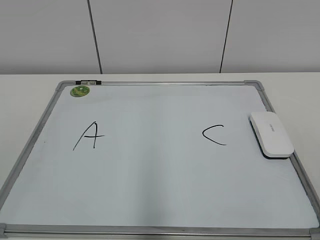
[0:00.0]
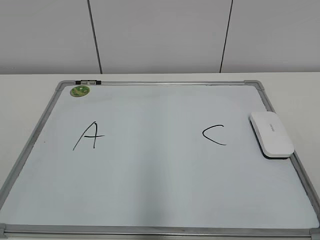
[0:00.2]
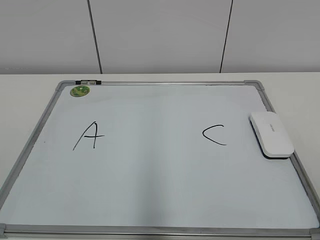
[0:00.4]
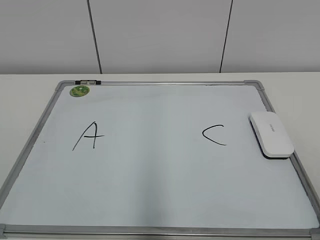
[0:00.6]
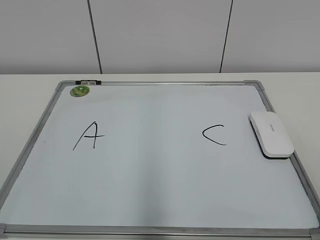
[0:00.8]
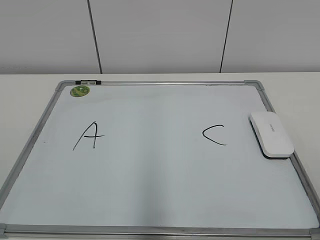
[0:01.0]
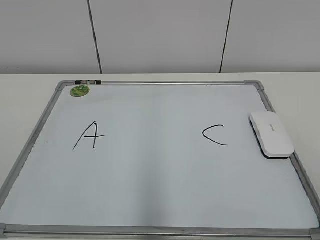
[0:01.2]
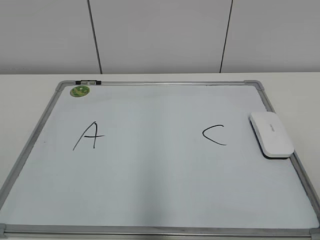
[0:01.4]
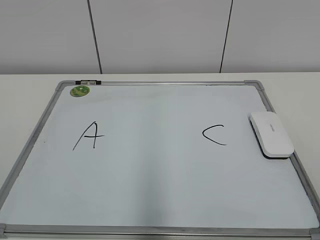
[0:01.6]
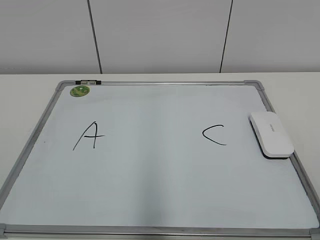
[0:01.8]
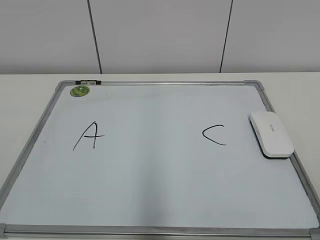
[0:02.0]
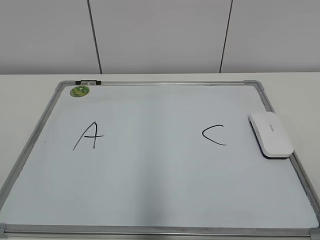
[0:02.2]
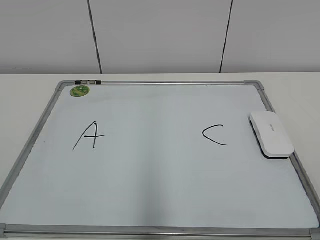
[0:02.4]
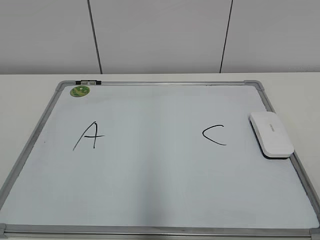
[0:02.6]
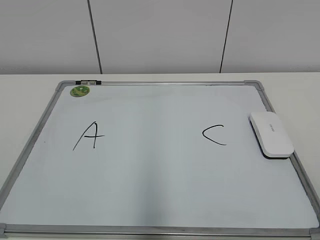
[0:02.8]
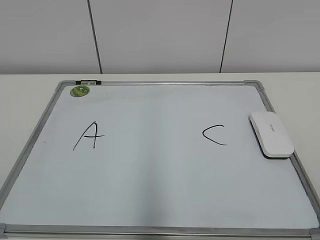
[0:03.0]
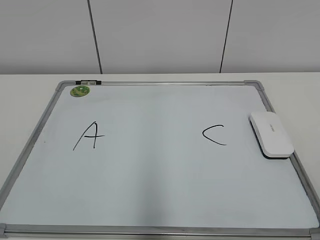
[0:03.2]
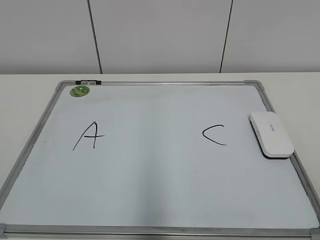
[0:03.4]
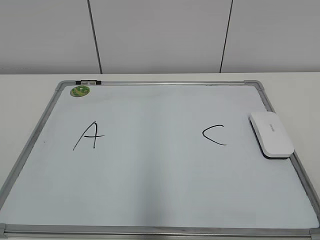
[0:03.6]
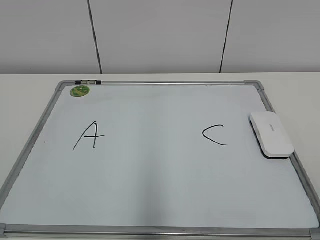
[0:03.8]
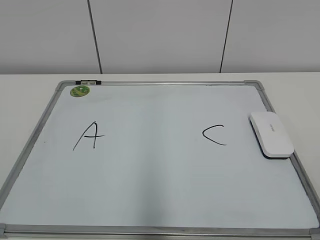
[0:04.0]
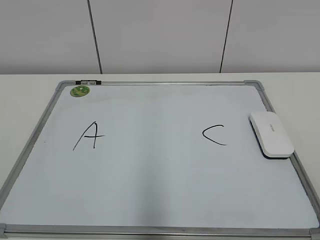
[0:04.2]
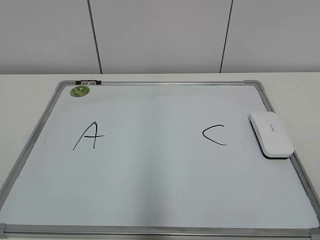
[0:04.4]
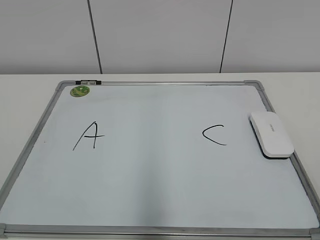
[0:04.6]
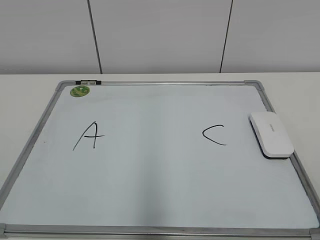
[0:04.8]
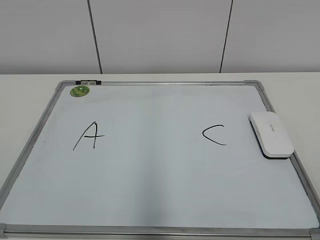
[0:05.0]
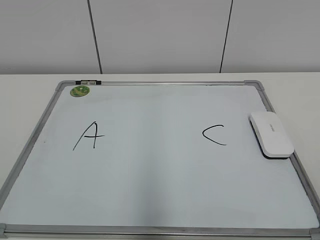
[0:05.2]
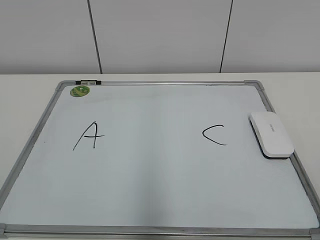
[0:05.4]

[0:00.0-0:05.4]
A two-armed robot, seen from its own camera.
Task of the whole recording: pick up the eraser on the blackboard and erase the letter "B".
0:02.8 to 0:05.4: Neither gripper changes place.

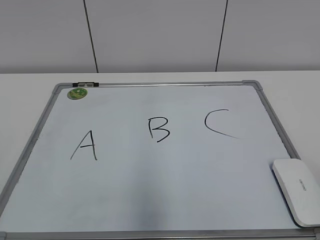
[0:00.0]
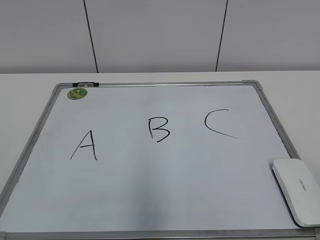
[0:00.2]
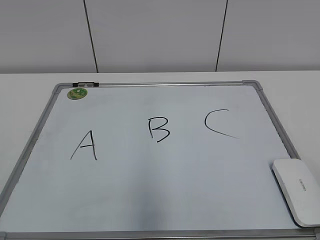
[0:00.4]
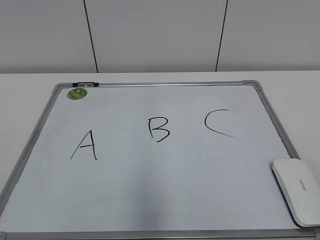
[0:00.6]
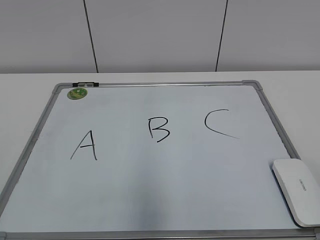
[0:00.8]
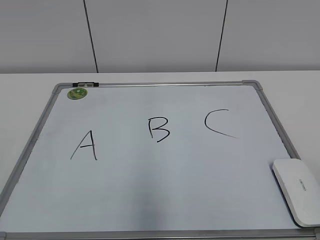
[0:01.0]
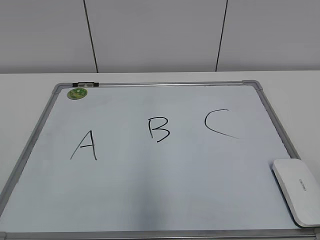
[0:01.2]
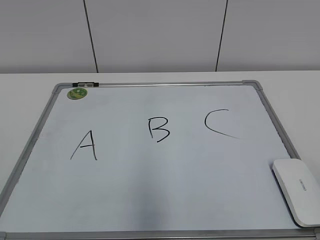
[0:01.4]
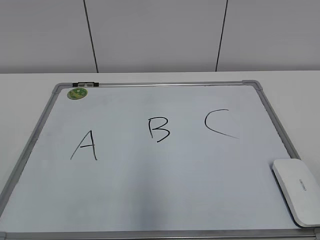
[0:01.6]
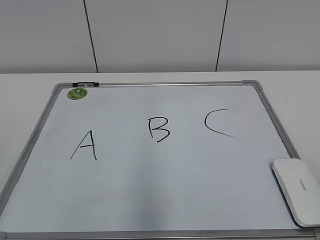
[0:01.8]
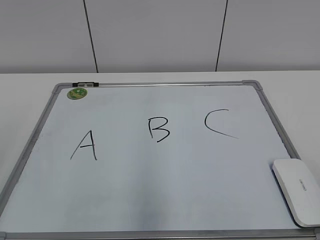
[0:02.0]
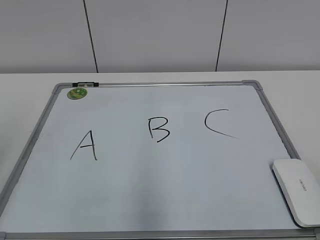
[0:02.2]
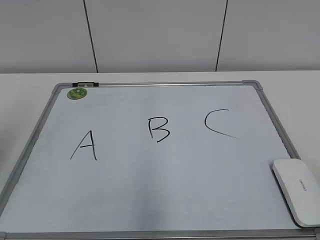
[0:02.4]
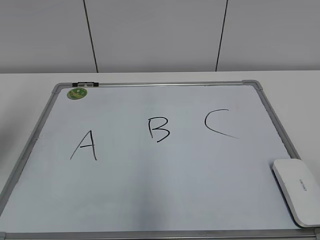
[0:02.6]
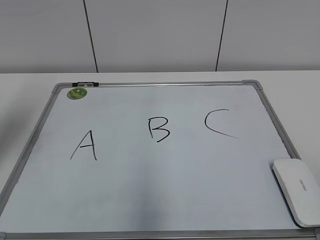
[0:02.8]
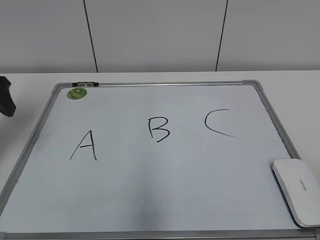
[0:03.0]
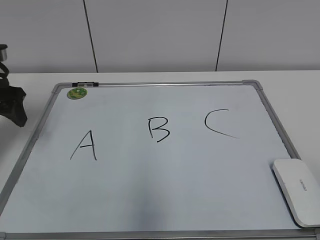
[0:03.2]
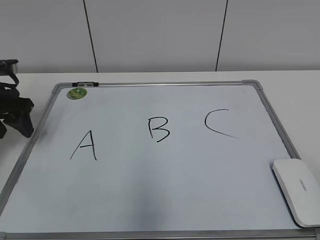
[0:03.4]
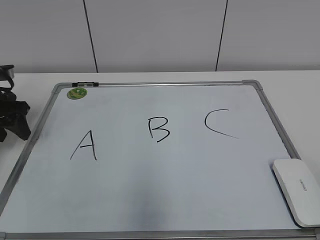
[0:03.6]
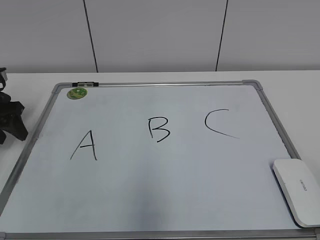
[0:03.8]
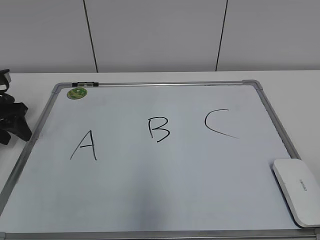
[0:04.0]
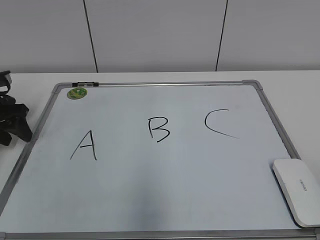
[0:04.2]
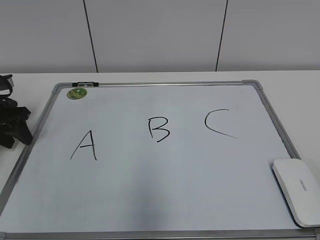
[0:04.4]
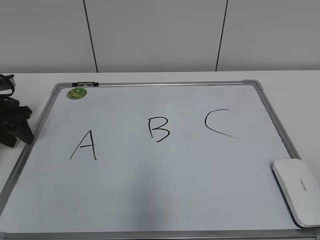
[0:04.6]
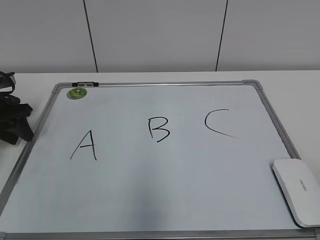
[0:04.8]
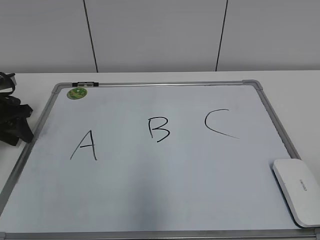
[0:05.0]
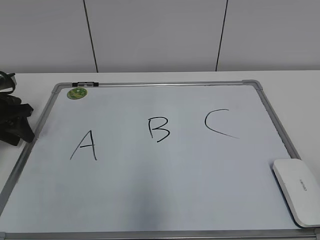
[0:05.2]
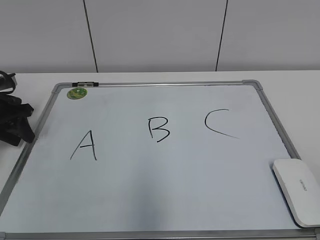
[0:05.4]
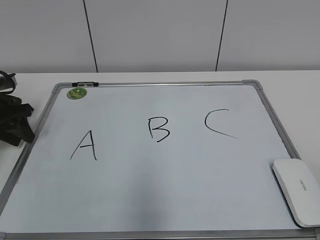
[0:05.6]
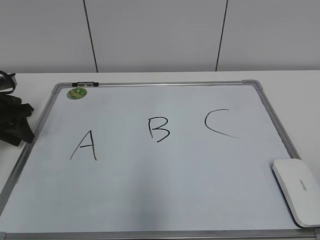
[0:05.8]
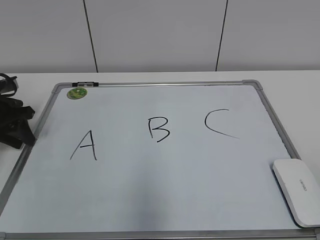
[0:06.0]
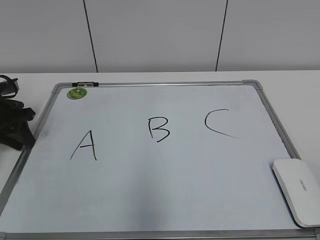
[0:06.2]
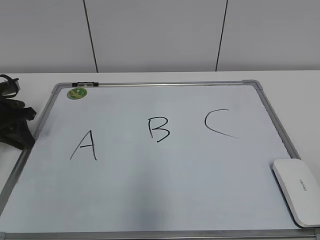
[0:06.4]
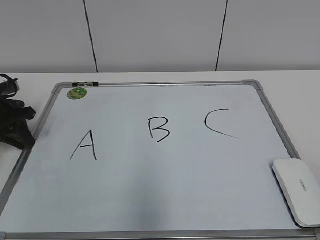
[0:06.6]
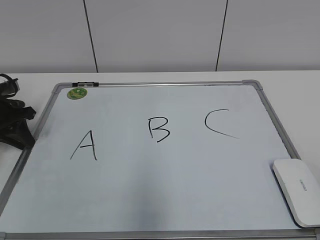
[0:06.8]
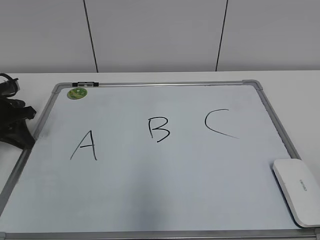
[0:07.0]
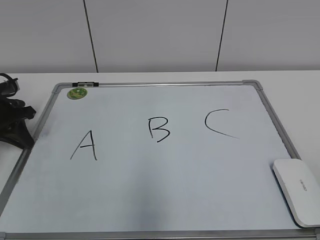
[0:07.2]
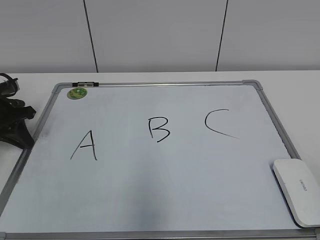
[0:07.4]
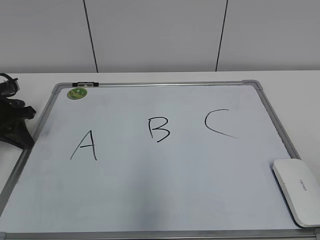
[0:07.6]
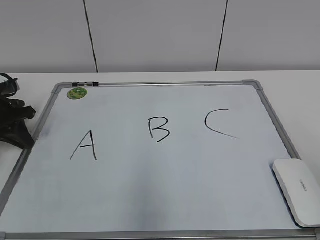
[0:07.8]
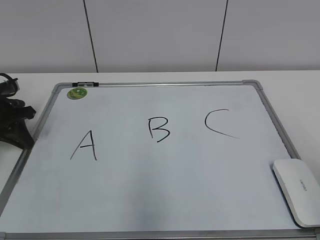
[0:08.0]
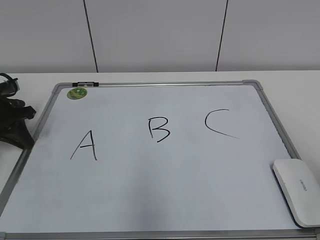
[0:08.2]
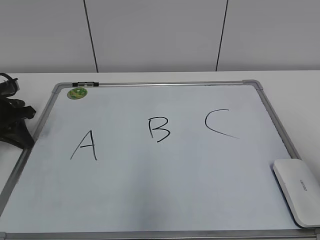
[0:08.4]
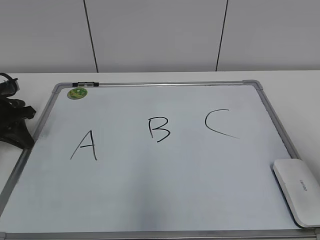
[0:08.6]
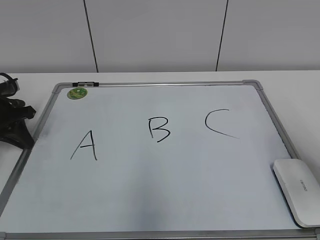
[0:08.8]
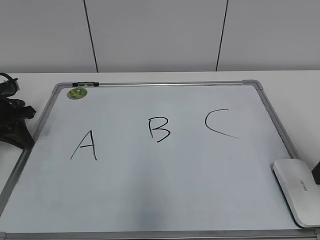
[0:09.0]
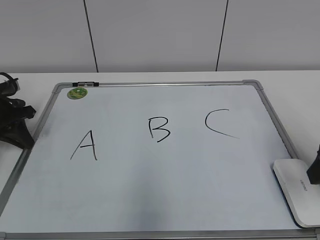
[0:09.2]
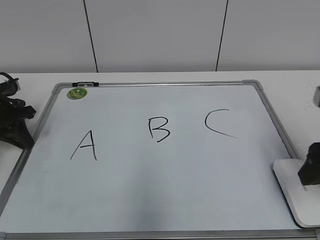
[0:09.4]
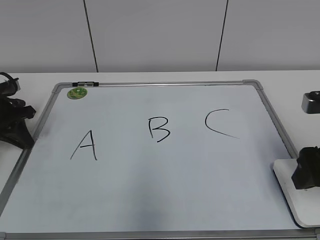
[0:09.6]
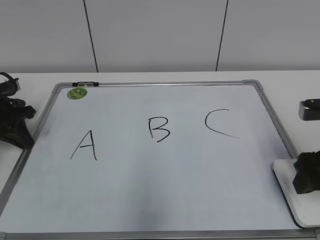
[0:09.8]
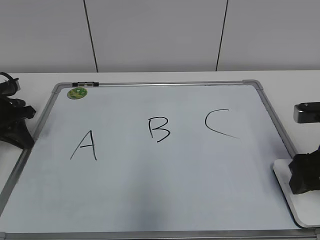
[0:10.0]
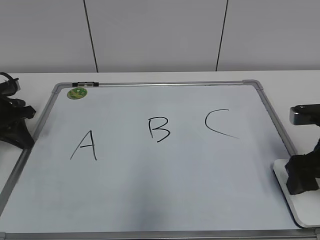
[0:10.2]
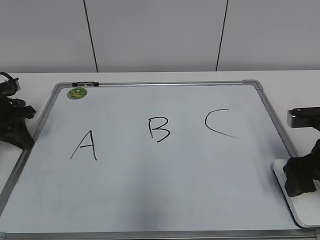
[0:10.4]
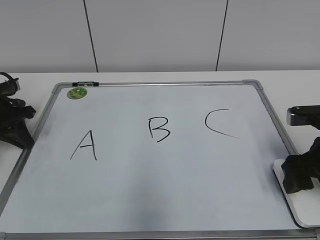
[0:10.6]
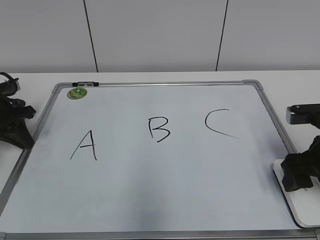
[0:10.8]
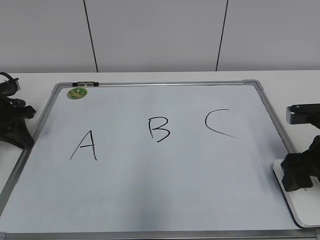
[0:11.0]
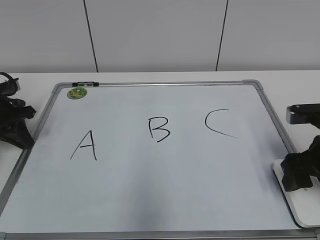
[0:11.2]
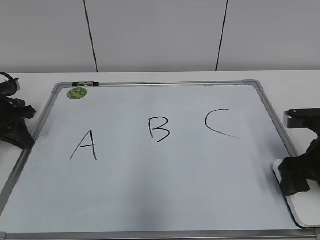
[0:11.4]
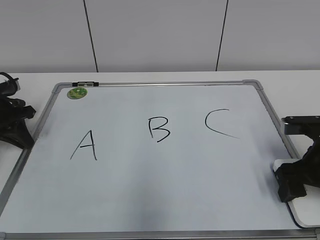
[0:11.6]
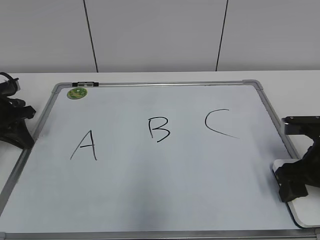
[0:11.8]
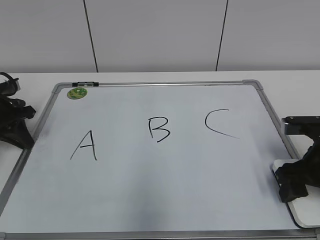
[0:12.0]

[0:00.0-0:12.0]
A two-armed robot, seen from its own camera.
Task of the whole recording: pick up the eraser on the blackboard and erase the letter "B".
Step, 0:00.0 to 0:07.0: Hold the drawing board steady with your left hand.
Step, 0:07.2 to 0:11.8: Grab the eraser with your right hand.
0:01.6 to 0:03.0: The left gripper goes approximately 35 cm forward.
0:03.0 to 0:04.4: The left gripper goes roughly 15 cm downward and forward.
0:04.4 to 0:06.0: Both grippers stay put.
0:07.6 to 0:09.0: The right gripper moves forward, about 20 cm.
0:09.0 to 0:10.4: The right gripper travels downward by about 10 cm.
0:10.4 to 0:12.0: The grippers make only small movements.

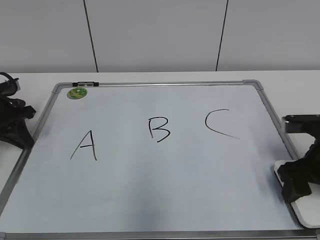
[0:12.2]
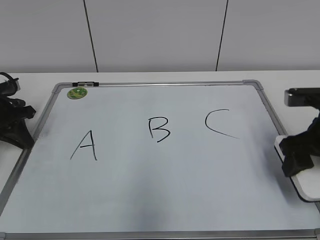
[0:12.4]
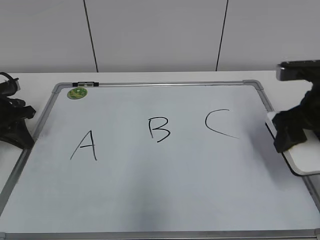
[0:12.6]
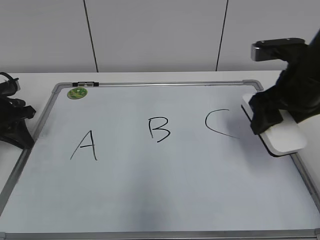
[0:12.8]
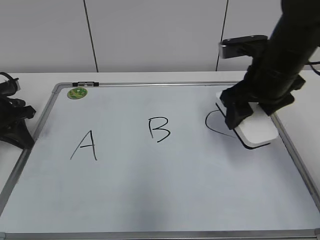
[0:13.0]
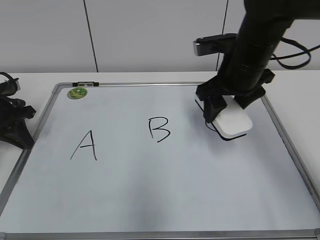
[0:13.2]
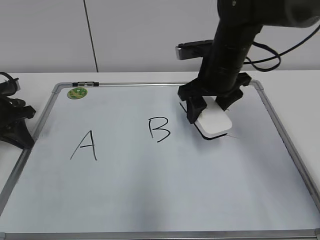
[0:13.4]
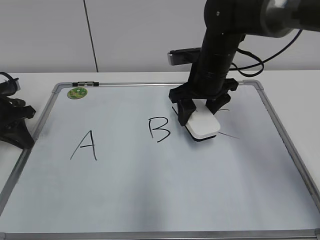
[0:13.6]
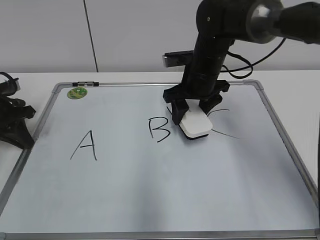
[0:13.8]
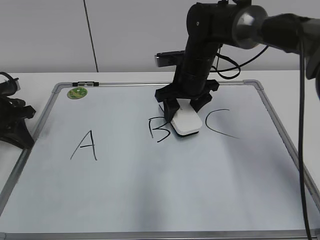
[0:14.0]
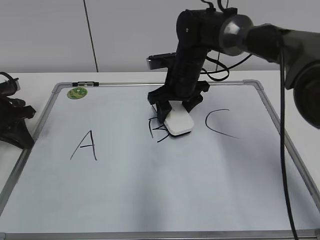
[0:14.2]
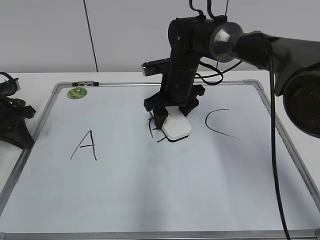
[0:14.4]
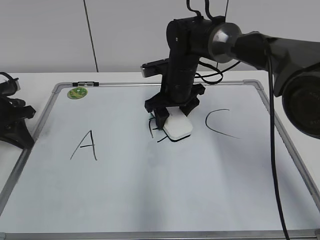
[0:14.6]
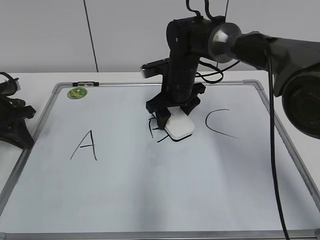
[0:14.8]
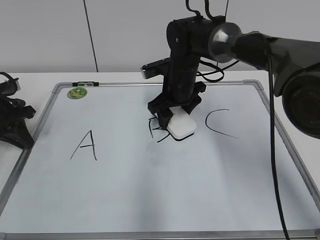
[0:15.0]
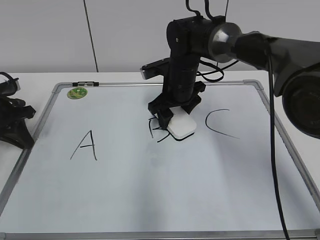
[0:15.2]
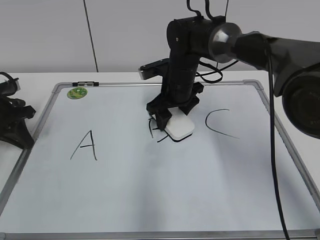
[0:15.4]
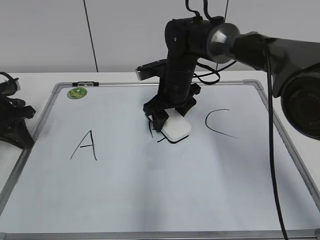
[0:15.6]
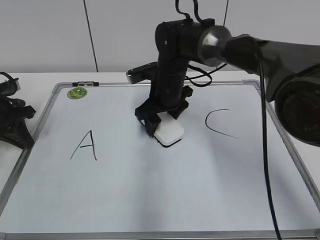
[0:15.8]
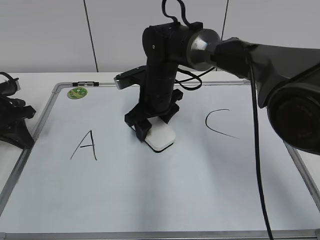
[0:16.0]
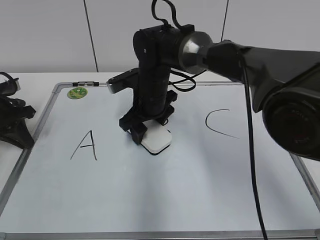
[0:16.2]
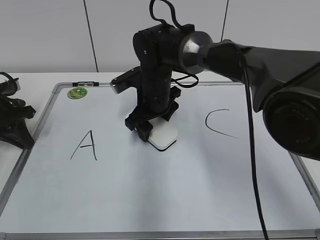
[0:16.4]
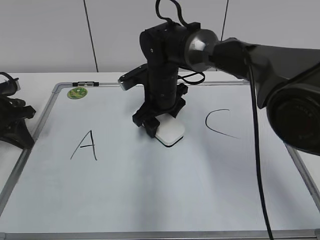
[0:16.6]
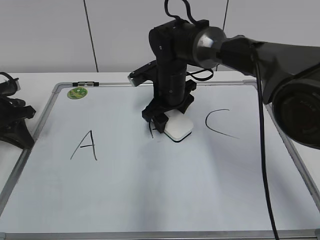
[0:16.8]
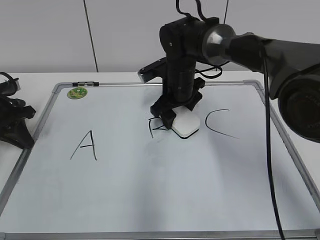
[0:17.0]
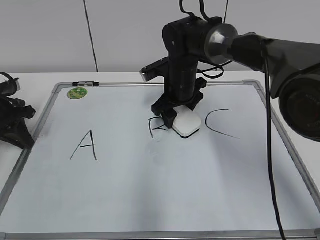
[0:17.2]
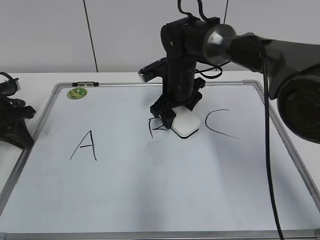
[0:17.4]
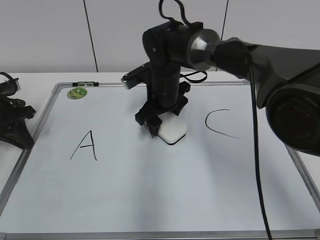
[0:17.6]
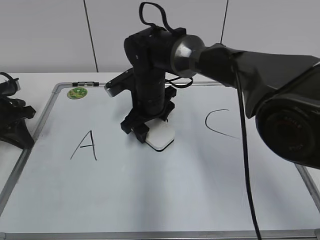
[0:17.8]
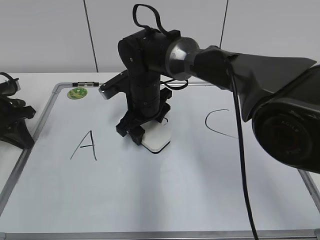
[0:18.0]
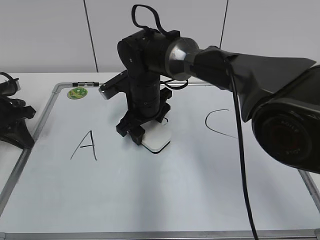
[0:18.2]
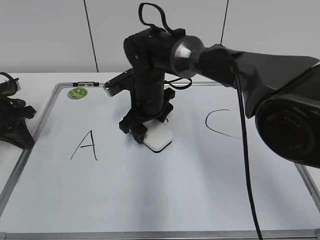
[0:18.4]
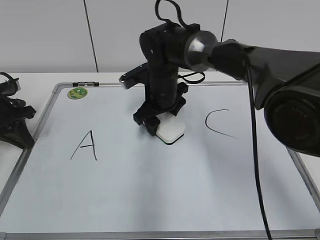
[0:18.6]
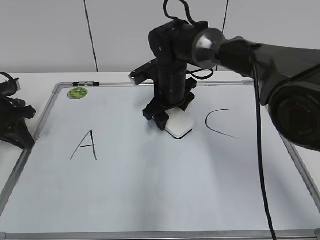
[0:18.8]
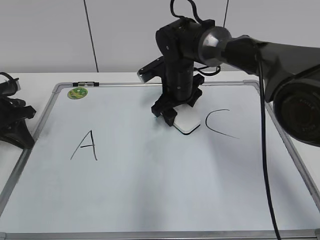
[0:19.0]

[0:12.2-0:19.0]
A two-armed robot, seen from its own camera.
Task of the whole recording: pick up the eraser on the blackboard and erase the letter "B".
0:12.2 to 0:13.6: The right gripper moves to the left and forward, roughly 20 cm.
0:13.6 to 0:15.0: The right gripper shifts by roughly 10 cm.
0:15.0 to 0:16.2: The right gripper travels to the left by about 5 cm.
0:17.6 to 0:19.0: The grippers stay close to where they were, moving slightly.
